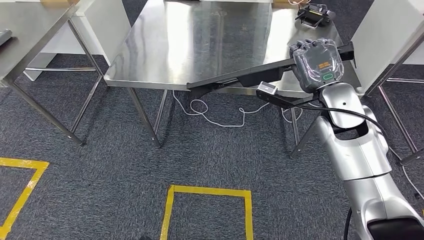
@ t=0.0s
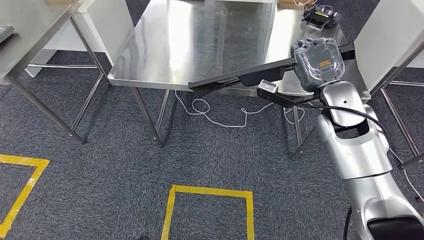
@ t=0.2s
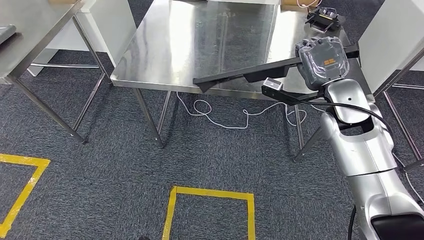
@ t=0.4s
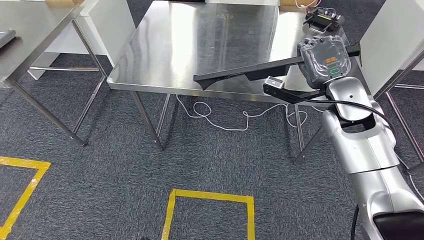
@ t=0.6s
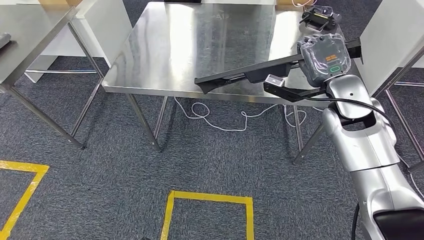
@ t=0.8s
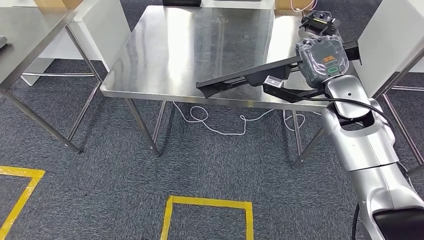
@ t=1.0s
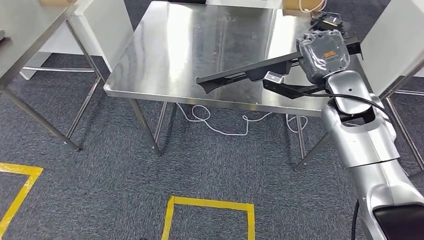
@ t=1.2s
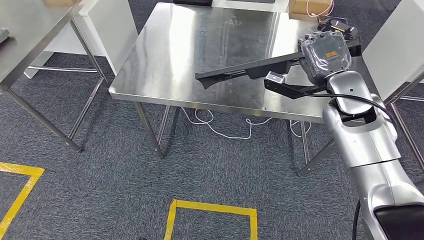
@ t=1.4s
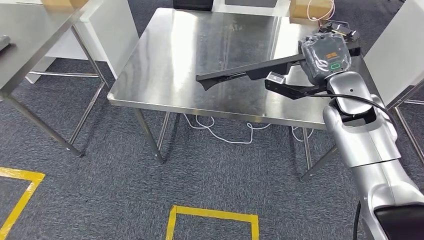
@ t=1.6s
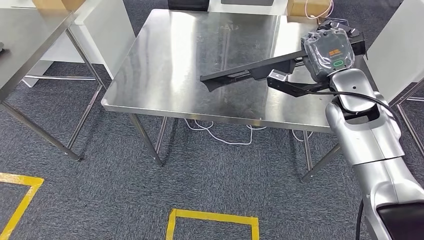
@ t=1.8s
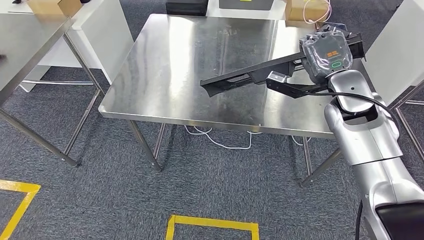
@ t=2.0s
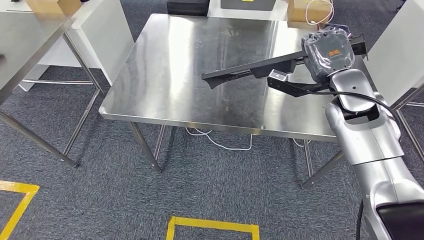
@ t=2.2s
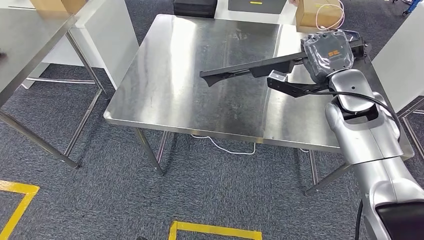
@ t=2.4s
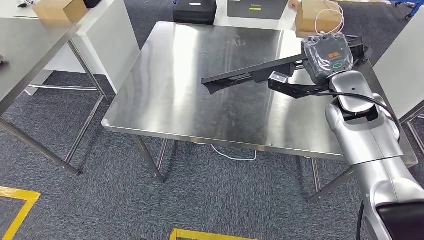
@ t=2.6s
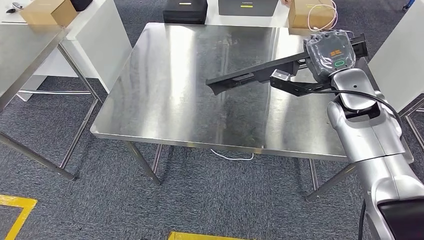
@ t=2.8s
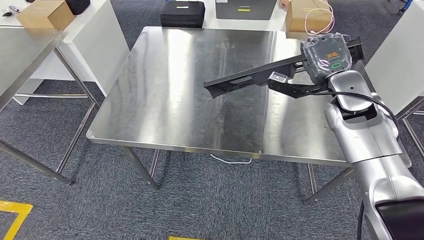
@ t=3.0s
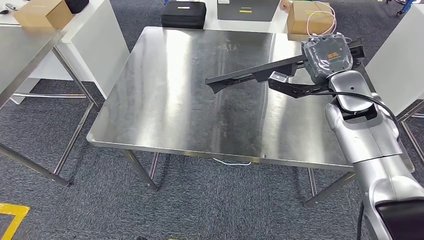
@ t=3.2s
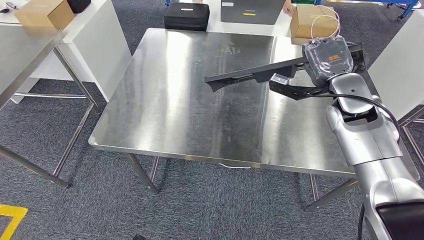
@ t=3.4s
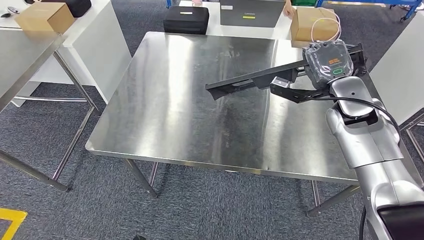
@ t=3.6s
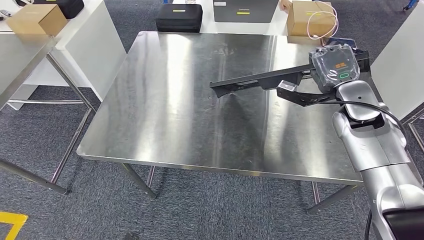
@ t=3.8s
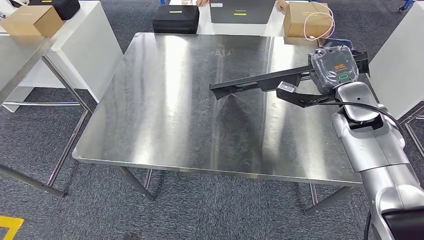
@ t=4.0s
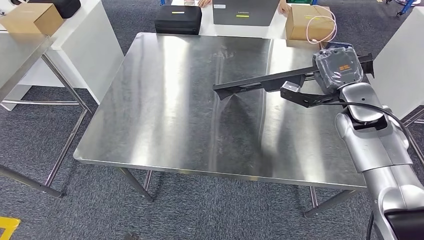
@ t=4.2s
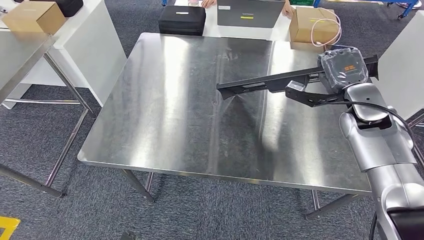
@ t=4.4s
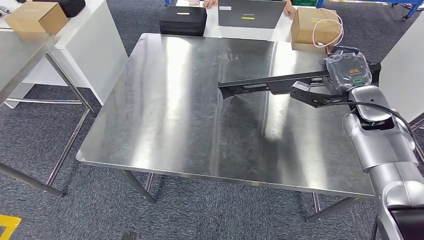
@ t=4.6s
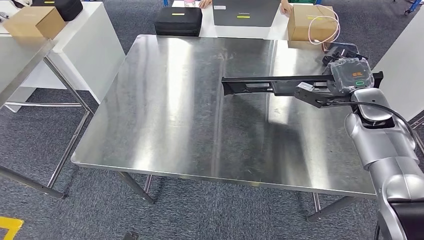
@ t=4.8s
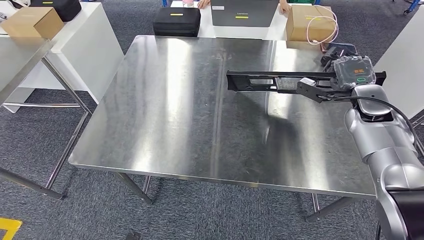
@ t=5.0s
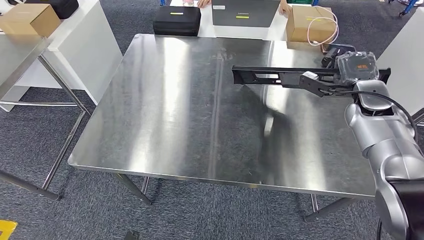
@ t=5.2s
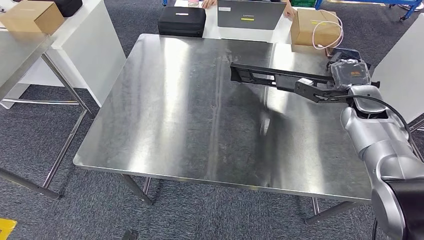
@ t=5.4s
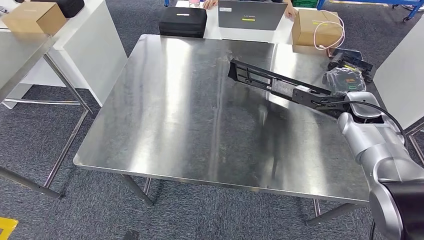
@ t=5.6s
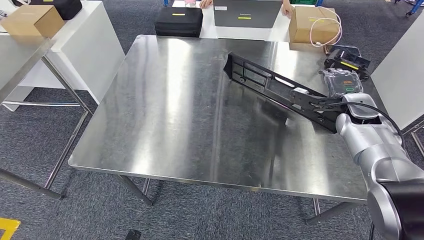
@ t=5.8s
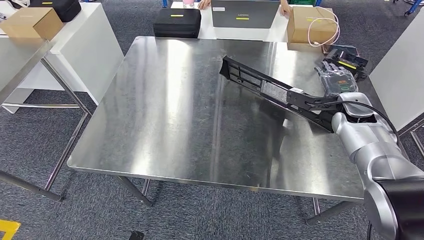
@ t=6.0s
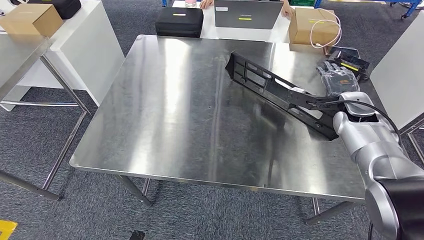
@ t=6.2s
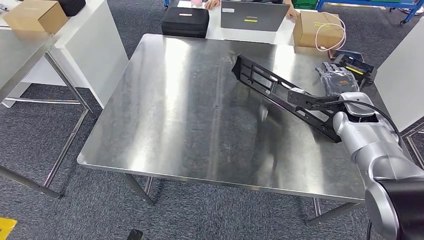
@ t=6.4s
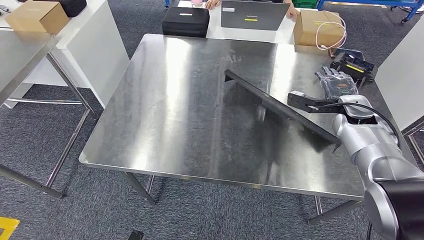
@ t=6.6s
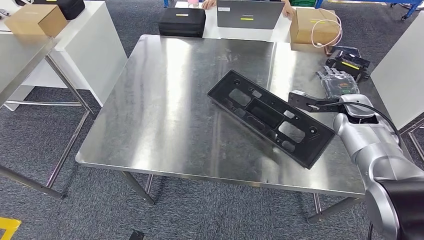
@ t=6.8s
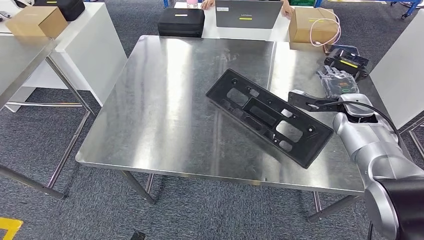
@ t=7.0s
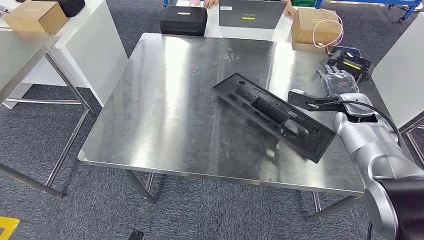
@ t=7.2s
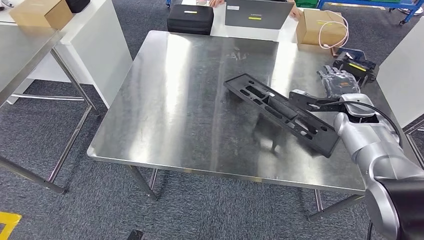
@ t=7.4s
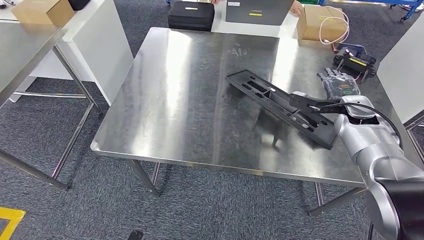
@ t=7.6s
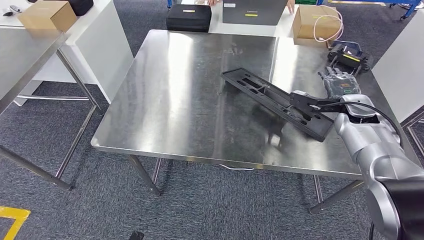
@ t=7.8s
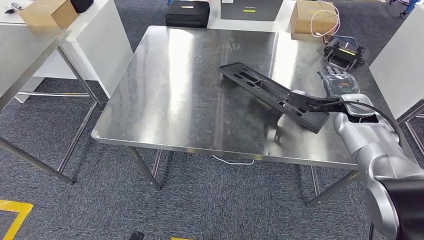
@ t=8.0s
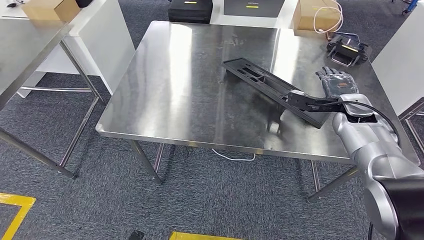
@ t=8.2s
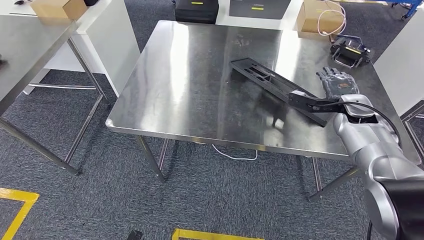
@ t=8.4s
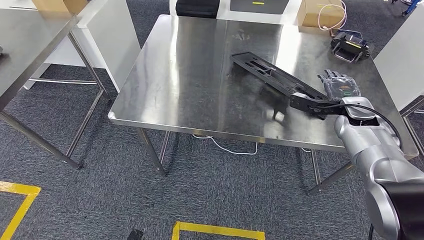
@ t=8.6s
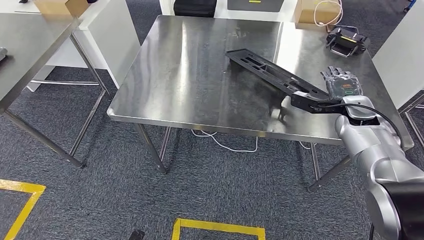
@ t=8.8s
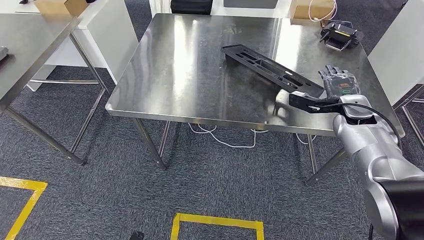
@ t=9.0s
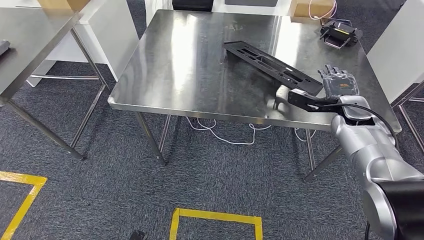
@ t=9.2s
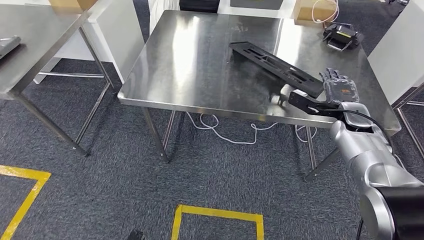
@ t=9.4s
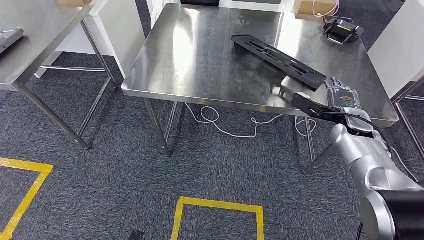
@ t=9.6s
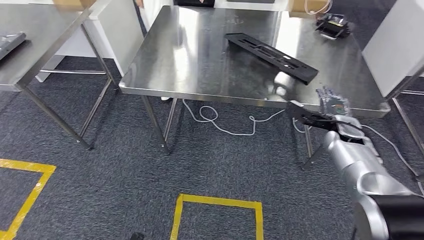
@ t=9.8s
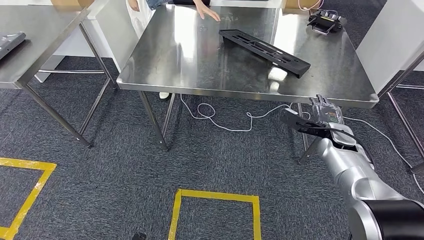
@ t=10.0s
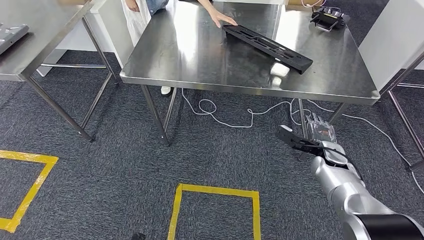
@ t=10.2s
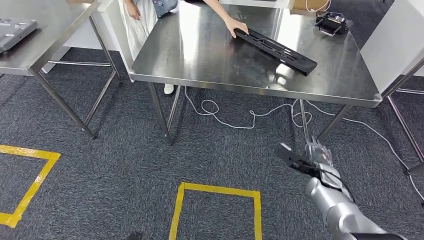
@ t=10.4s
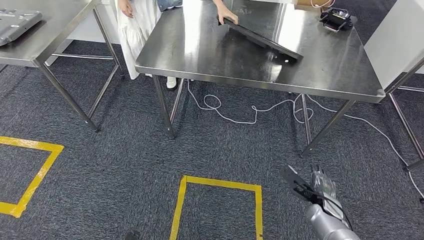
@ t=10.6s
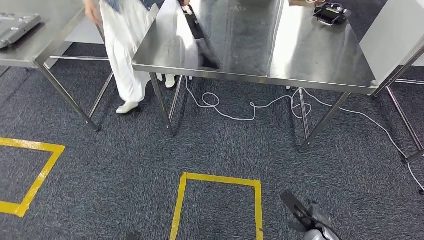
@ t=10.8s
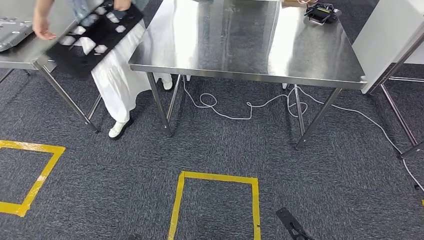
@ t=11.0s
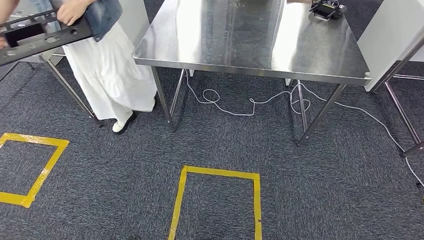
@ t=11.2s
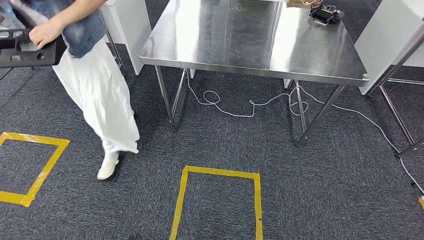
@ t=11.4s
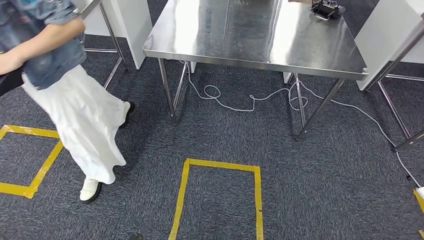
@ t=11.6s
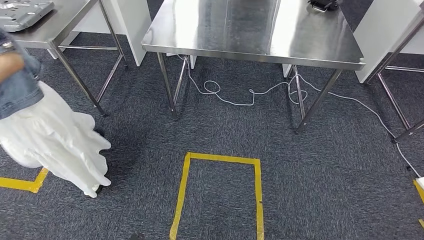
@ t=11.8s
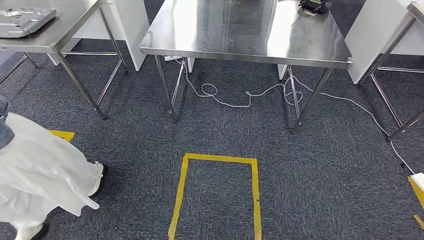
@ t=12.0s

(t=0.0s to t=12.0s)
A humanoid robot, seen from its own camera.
Step, t=0.0s - t=8.0s: Insert the large material into the corresponding slot on the workbench.

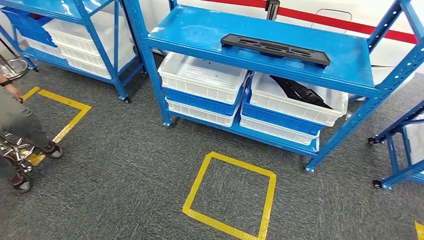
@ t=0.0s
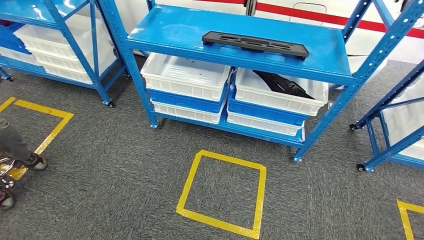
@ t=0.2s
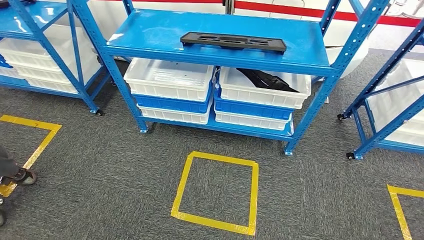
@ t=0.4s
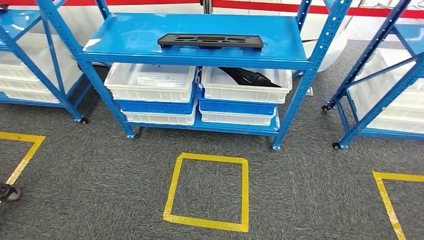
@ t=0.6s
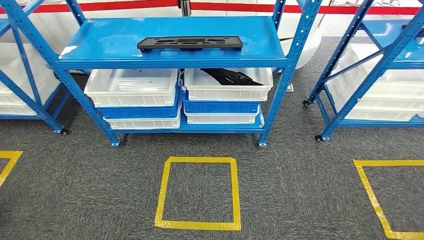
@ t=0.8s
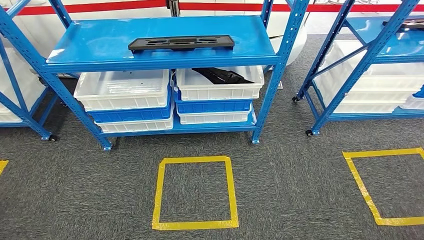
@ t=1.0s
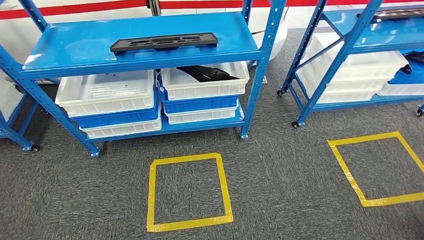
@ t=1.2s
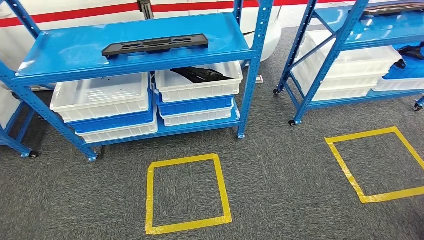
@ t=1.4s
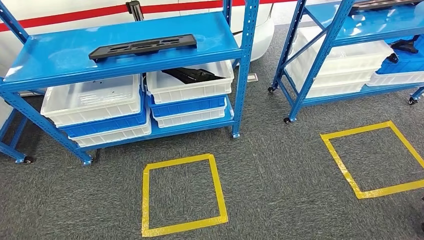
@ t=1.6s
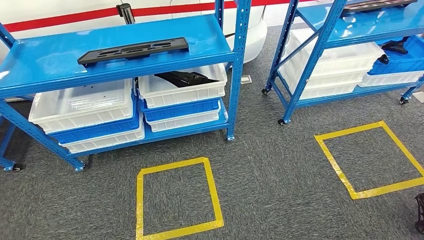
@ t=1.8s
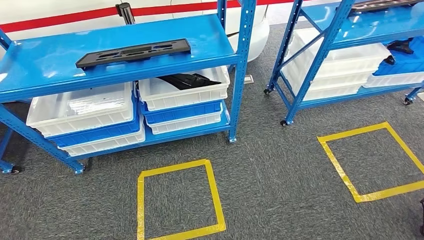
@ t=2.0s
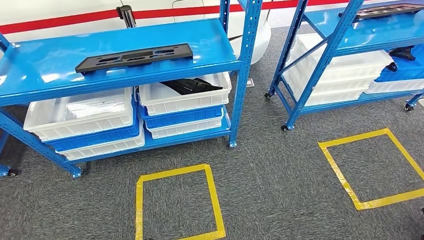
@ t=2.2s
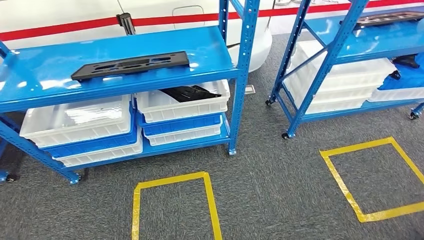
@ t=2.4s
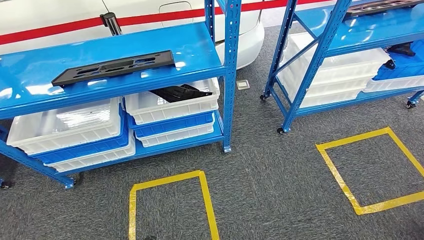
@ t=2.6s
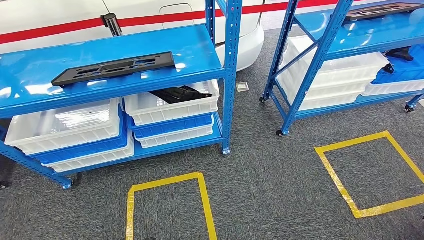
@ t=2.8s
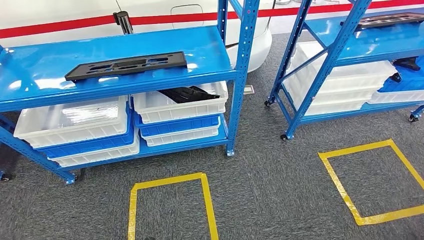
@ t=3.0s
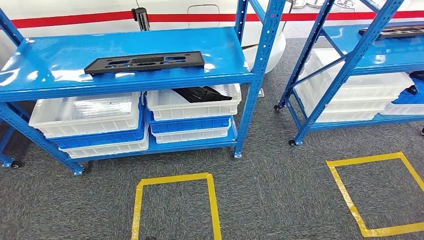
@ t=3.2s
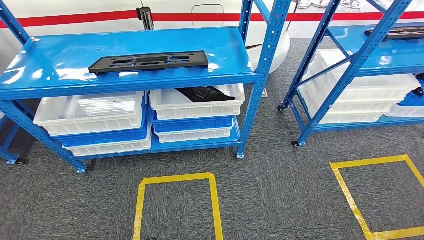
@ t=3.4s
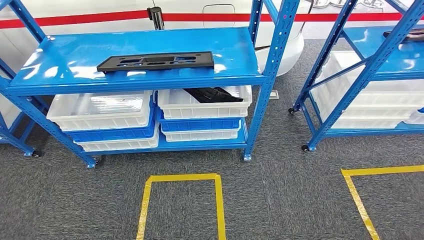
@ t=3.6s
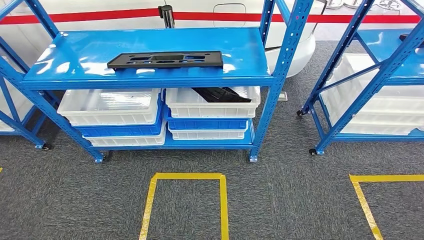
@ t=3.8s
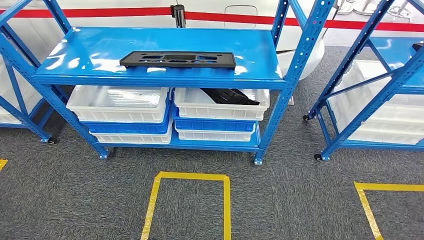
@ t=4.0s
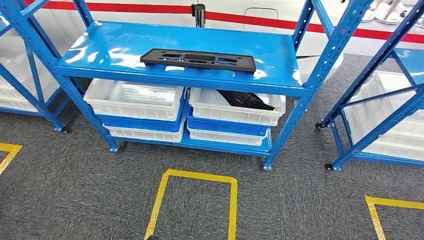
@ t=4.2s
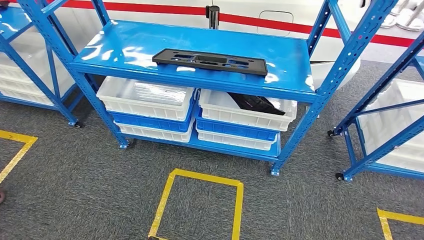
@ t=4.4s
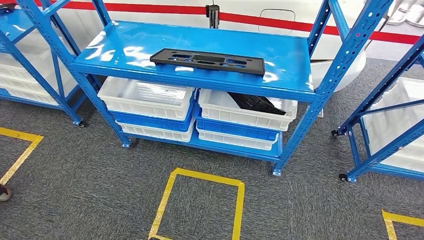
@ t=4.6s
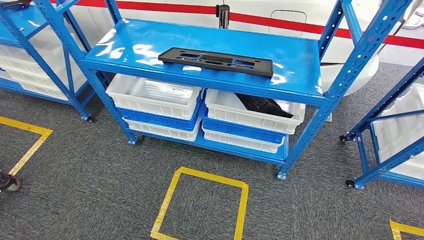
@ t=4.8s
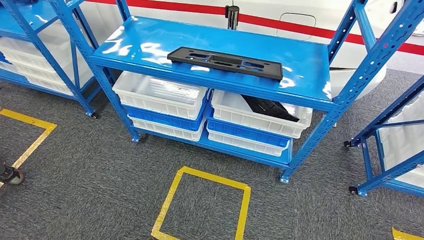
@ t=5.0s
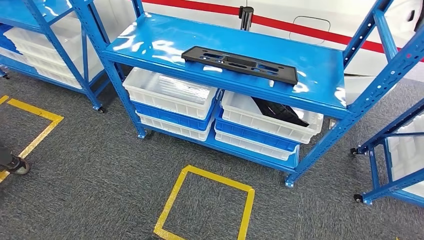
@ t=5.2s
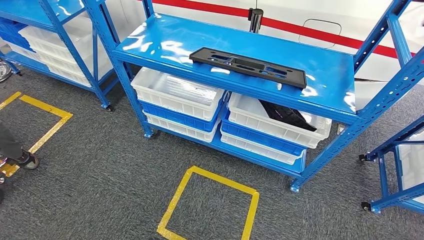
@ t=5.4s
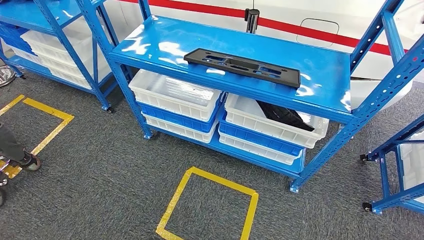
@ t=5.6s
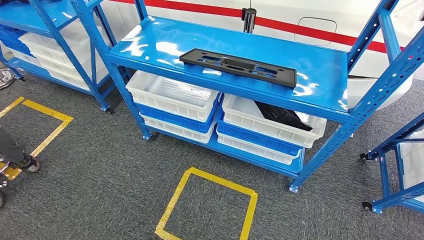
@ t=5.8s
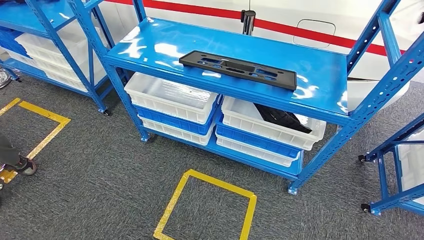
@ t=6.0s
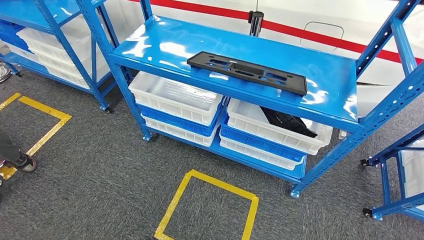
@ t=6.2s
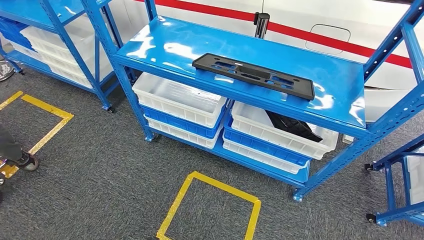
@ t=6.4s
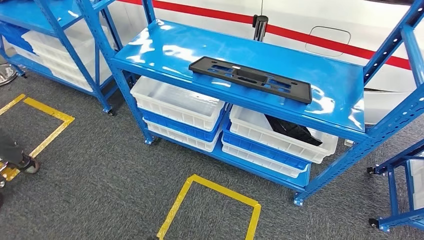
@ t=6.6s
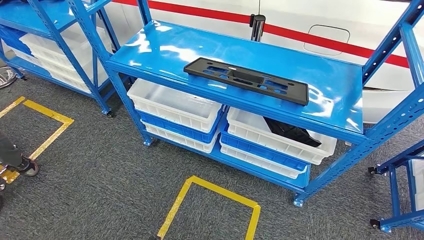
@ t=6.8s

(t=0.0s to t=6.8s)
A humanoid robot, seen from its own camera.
Step, t=0.0s - t=6.8s: Move to the initial position of the shelf.
